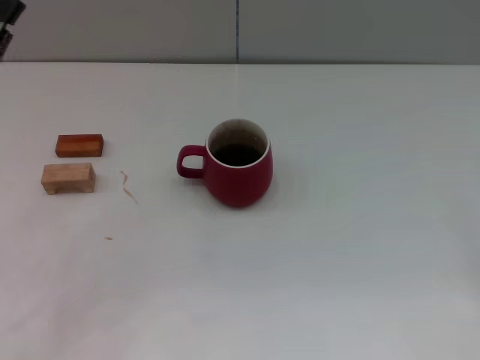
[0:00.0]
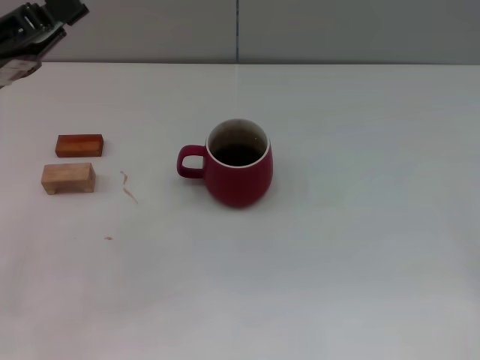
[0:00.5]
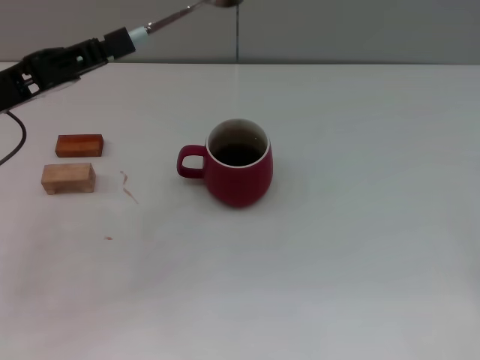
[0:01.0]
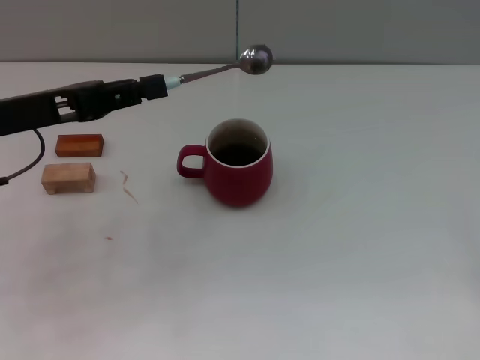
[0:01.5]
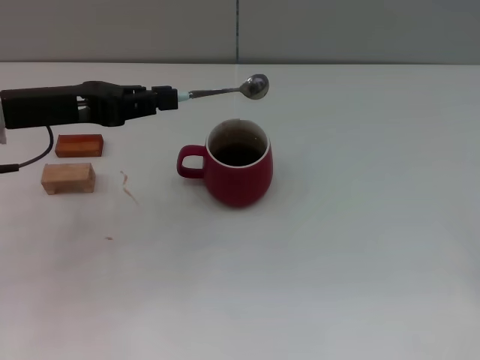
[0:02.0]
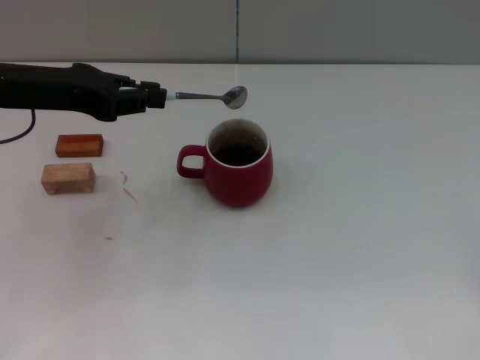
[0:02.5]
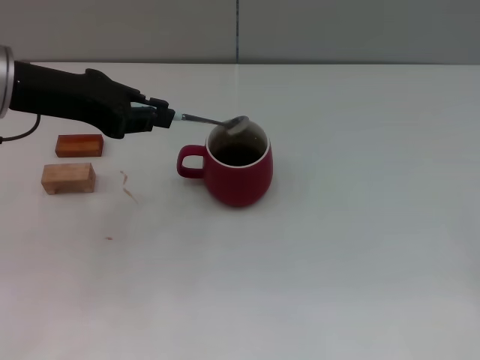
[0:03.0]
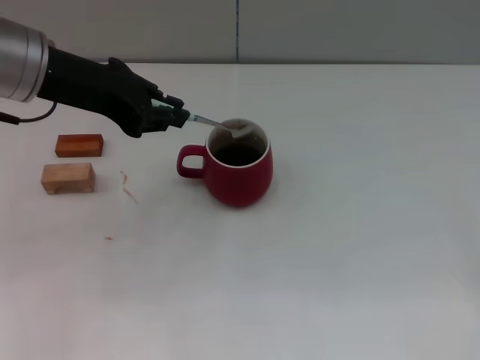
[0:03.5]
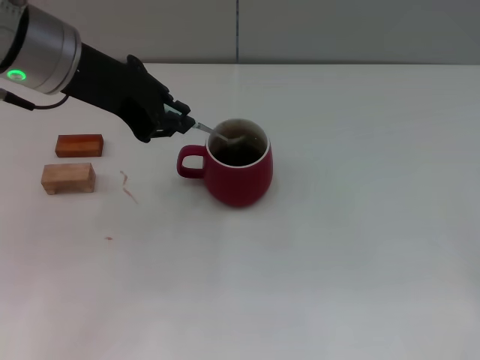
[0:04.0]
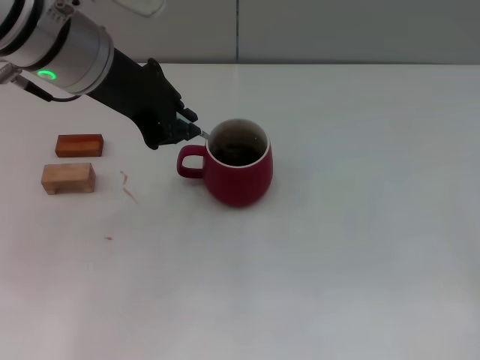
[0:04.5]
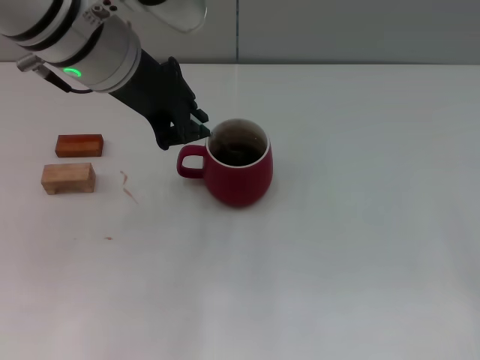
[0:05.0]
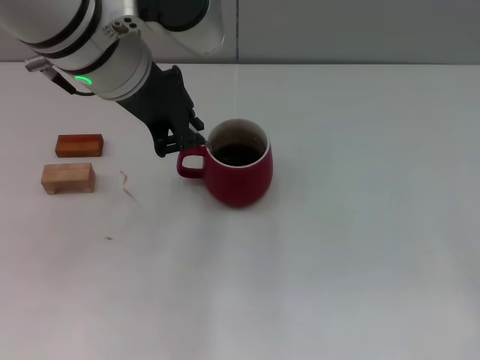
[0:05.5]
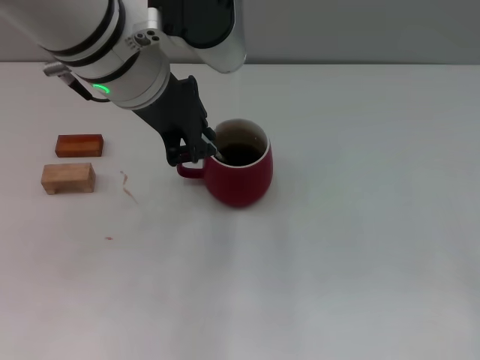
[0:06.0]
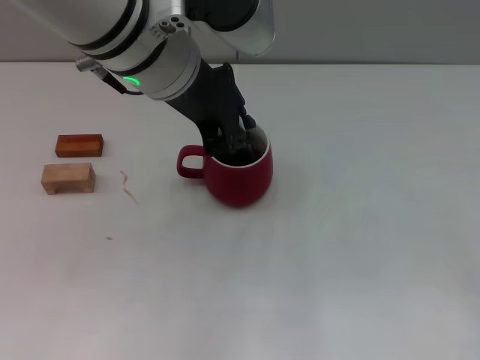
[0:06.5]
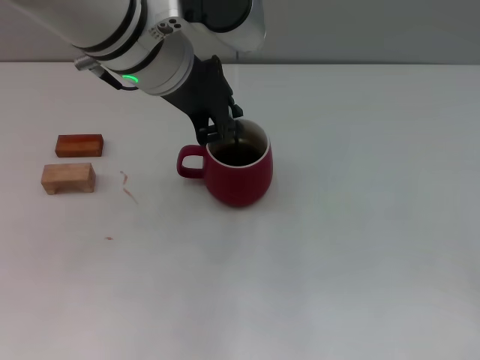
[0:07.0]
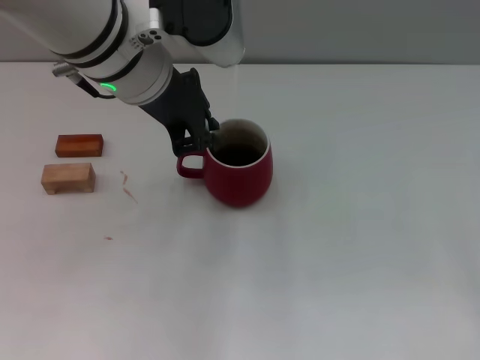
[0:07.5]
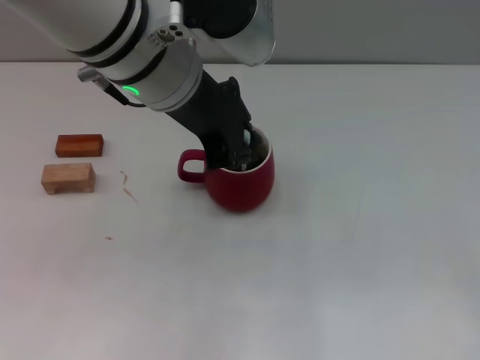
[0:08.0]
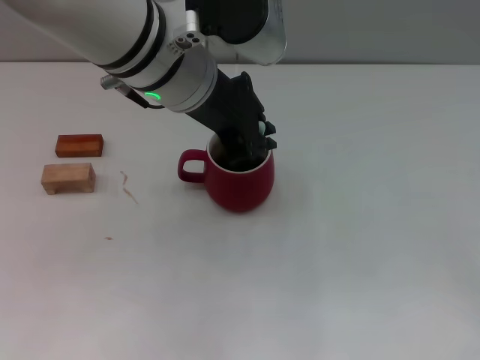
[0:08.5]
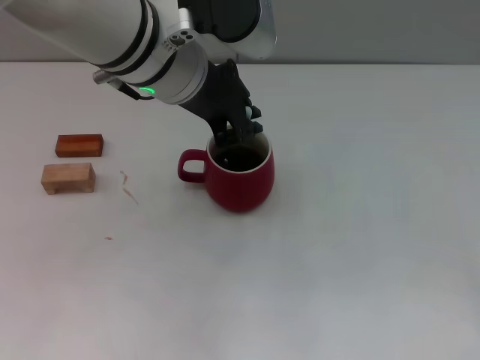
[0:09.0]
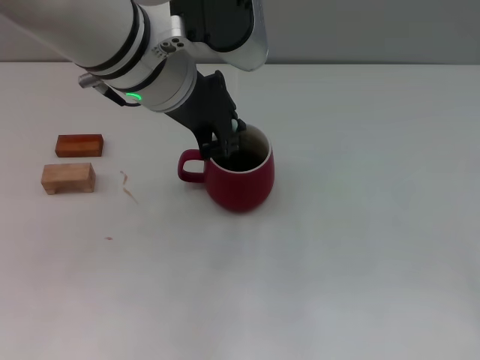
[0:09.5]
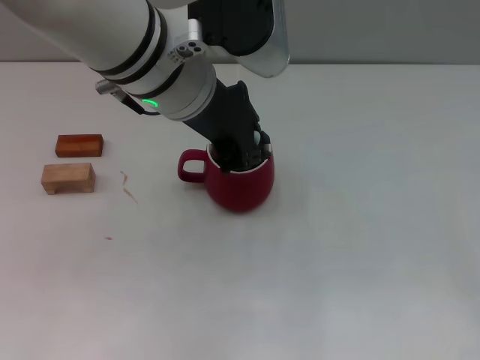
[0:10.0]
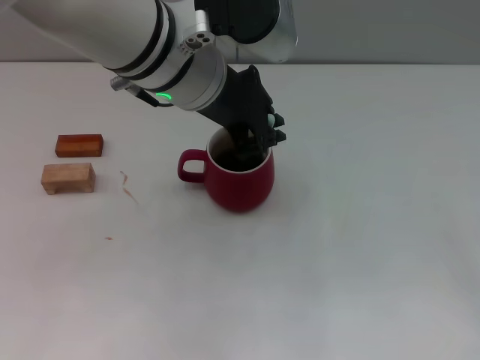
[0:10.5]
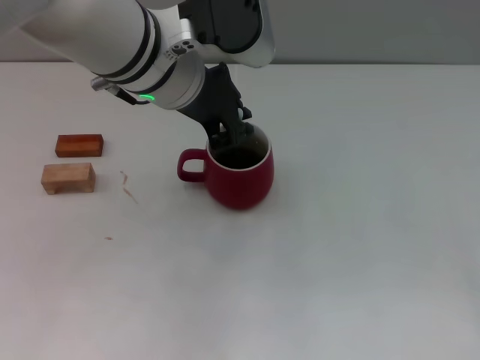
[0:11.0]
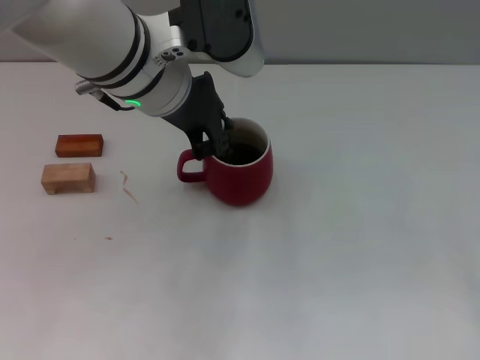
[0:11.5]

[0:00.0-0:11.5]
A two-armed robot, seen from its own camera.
Task of the whole recording: Move the red cup to the center, lift the blue spoon, stir it three times in the cup, and put the spoon into the cup.
0:00.0 to 0:02.0: The left gripper moves forward, approximately 10 cm.
0:02.0 to 0:04.0: The left gripper heads to the right and upward, covering roughly 10 cm.
0:04.0 to 0:06.0: The left gripper travels to the right by about 10 cm.
0:06.0 to 0:11.5: The grippers stay close to where they were, moving slightly.

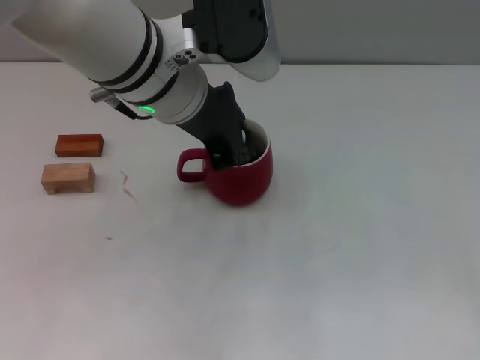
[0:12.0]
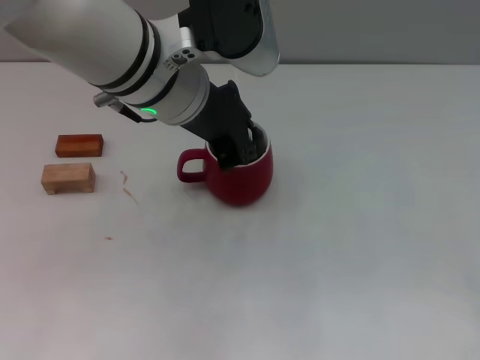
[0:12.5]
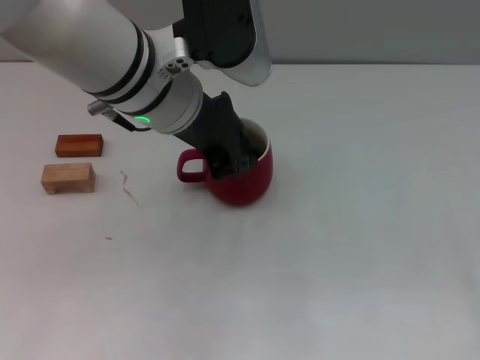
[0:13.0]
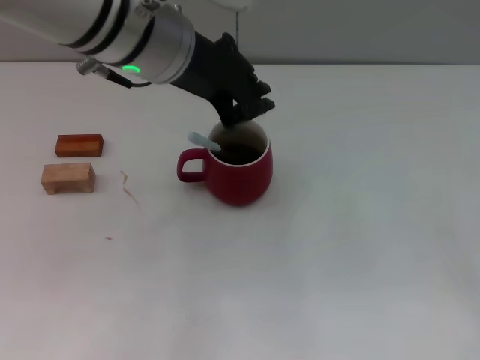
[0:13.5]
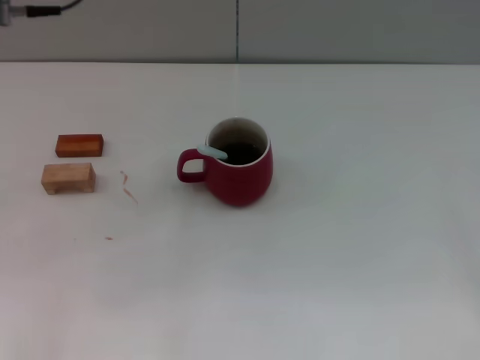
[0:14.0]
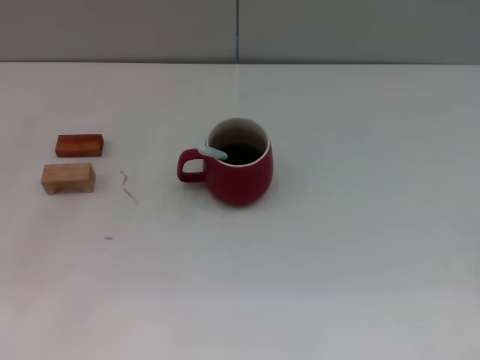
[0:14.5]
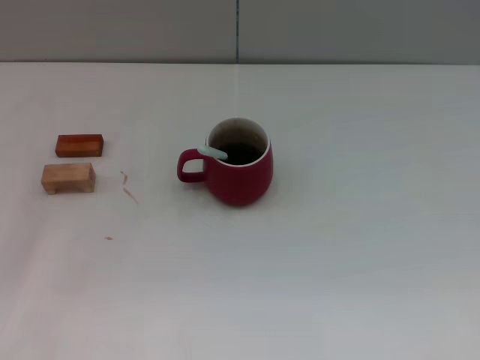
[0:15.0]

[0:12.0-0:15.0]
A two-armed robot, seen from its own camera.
Task of the whole recording: Move the red cup to the center, lift the blue spoon, stir it three times in the cup, and put the spoon into the cup.
0:12.0 to 0:13.5: The grippers make only small movements.
0:13.5 to 0:15.0: The left gripper moves to the left and downward, some 25 cm.
